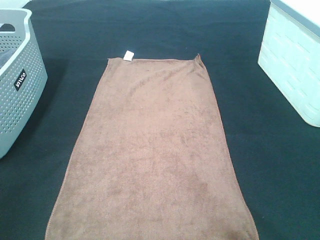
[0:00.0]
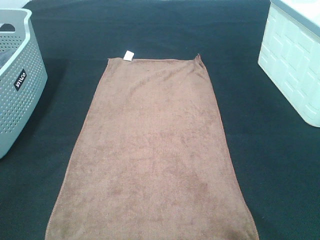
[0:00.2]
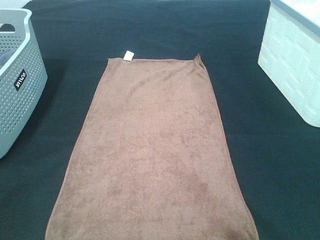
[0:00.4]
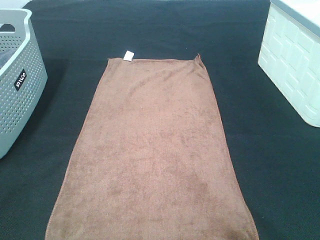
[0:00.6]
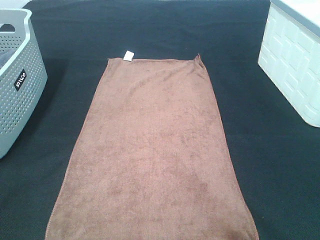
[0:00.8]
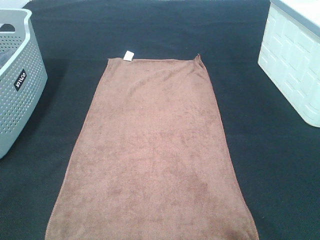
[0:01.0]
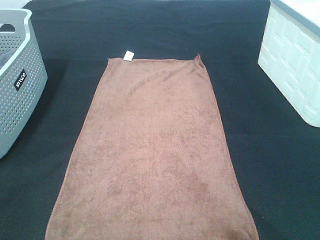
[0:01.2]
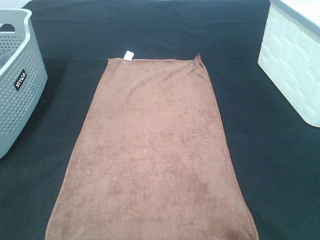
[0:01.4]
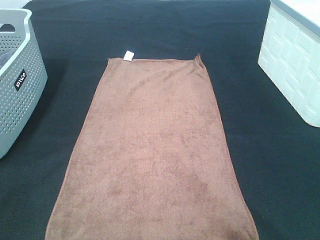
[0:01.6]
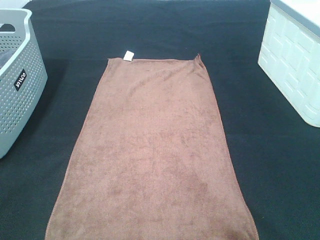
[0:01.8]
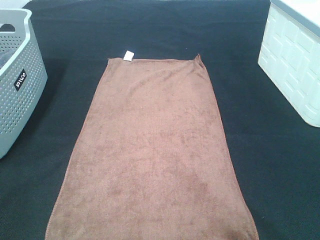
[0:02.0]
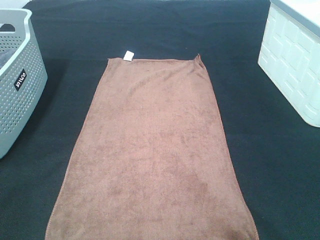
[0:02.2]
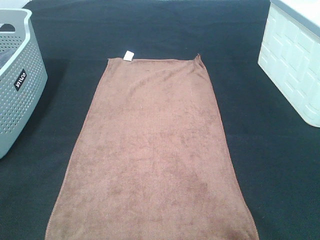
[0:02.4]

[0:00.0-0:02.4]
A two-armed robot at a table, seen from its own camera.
Task of the whole recording: Remove the towel and place it.
0:01.2 to 0:02.4: Neither gripper changes place.
